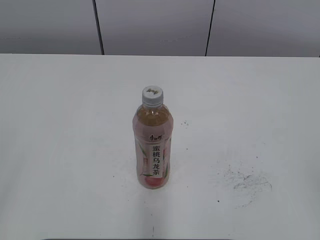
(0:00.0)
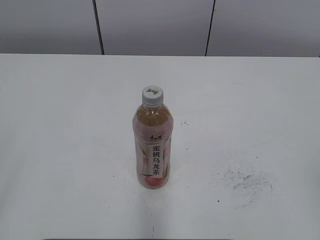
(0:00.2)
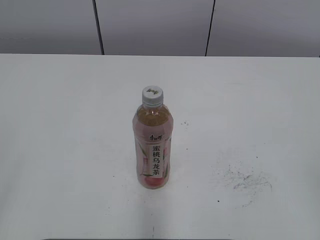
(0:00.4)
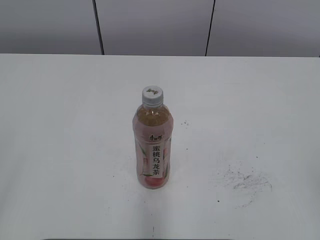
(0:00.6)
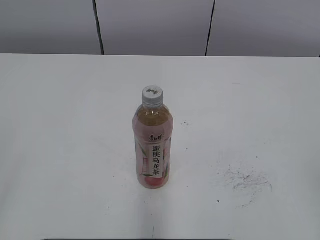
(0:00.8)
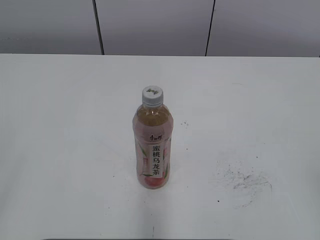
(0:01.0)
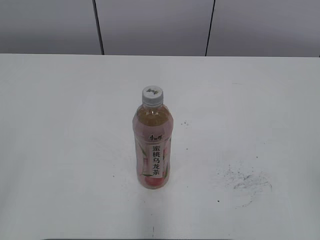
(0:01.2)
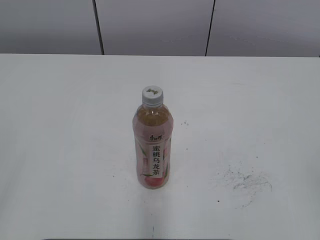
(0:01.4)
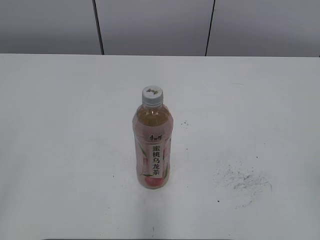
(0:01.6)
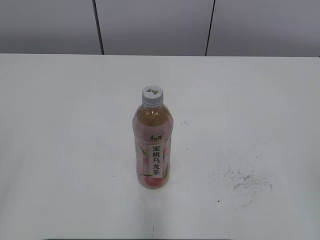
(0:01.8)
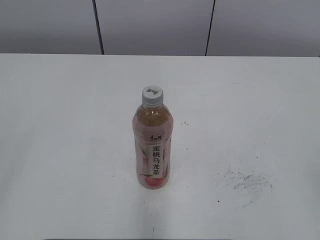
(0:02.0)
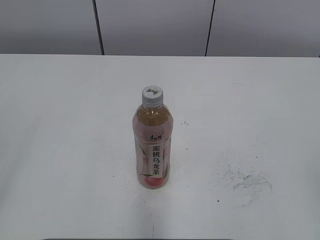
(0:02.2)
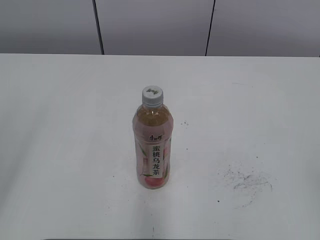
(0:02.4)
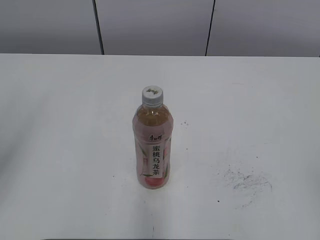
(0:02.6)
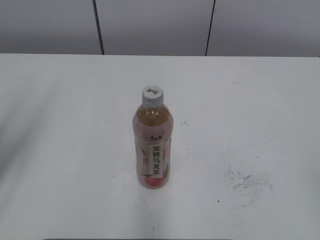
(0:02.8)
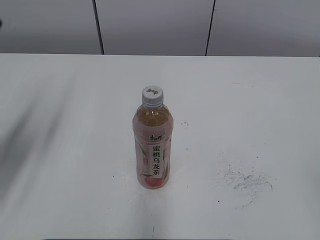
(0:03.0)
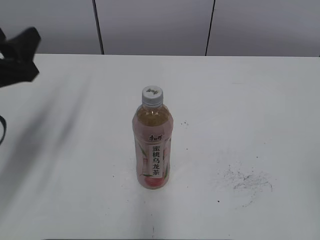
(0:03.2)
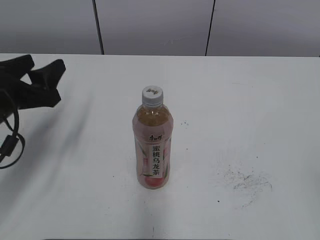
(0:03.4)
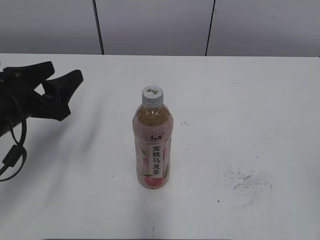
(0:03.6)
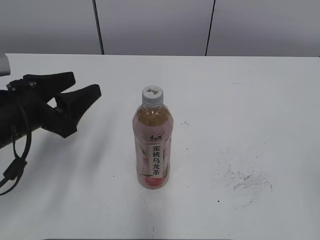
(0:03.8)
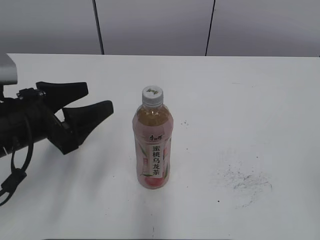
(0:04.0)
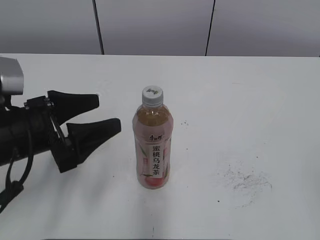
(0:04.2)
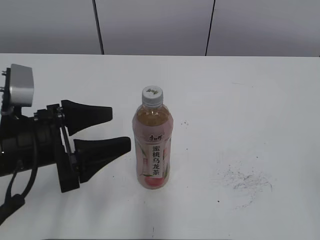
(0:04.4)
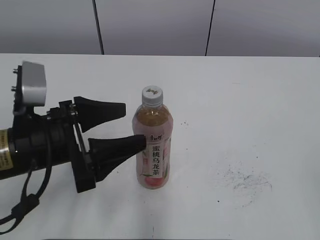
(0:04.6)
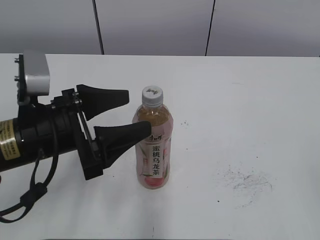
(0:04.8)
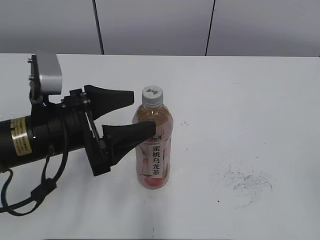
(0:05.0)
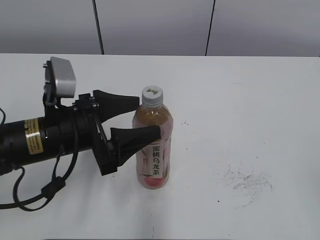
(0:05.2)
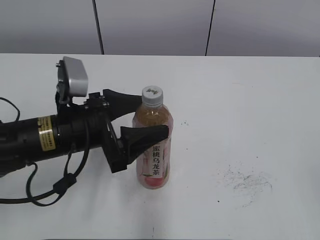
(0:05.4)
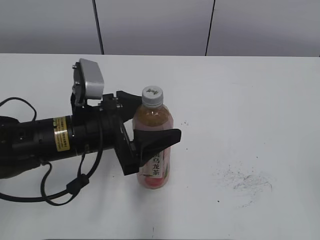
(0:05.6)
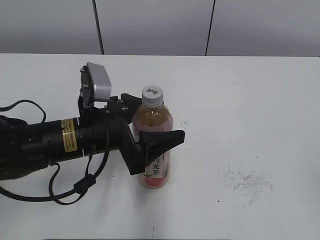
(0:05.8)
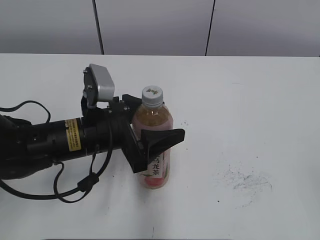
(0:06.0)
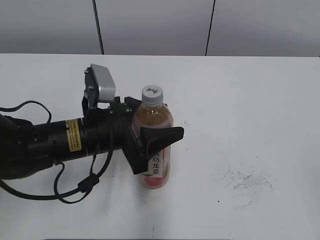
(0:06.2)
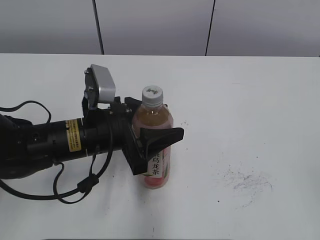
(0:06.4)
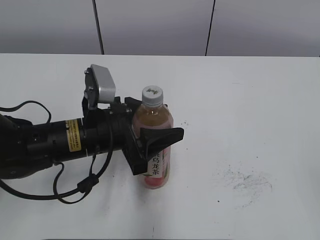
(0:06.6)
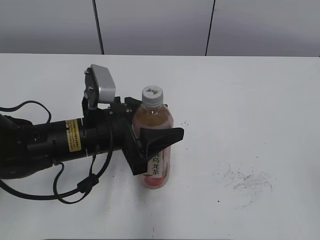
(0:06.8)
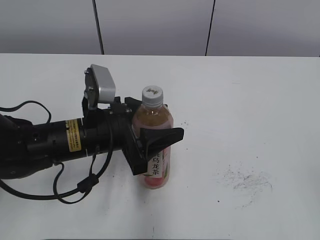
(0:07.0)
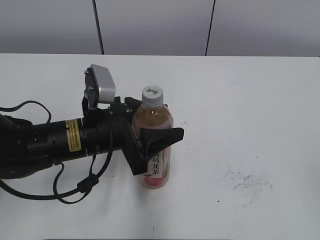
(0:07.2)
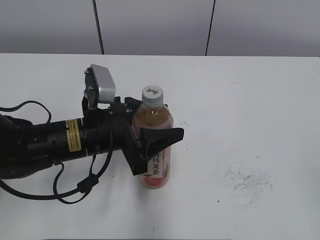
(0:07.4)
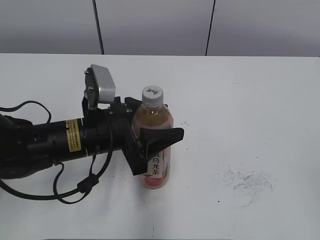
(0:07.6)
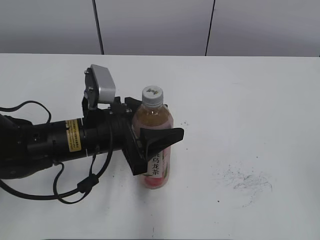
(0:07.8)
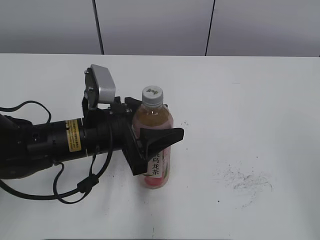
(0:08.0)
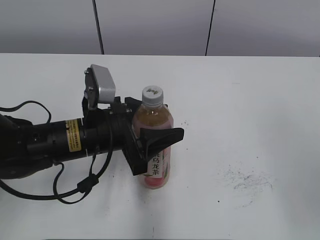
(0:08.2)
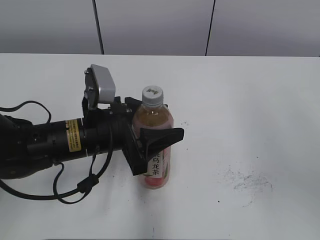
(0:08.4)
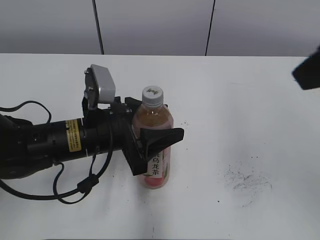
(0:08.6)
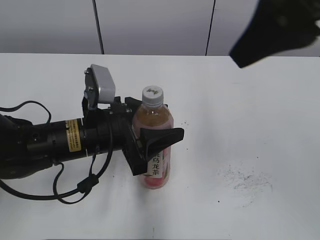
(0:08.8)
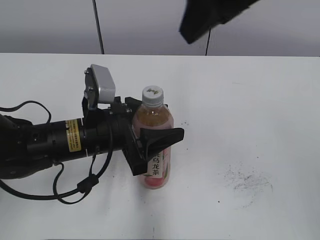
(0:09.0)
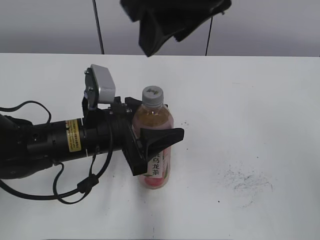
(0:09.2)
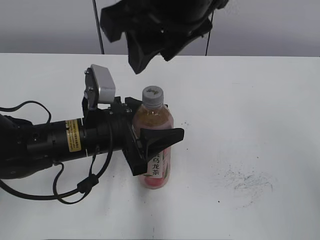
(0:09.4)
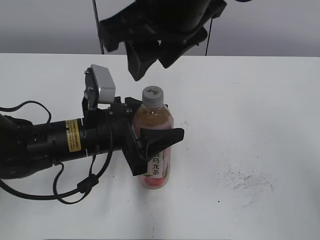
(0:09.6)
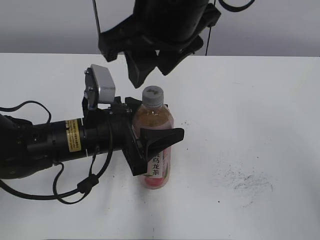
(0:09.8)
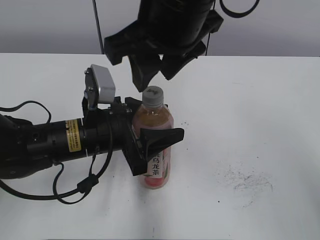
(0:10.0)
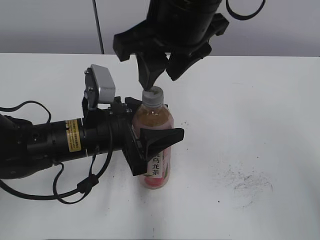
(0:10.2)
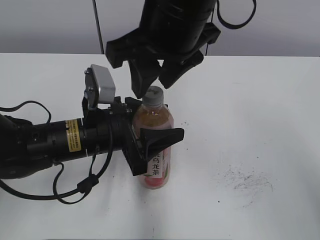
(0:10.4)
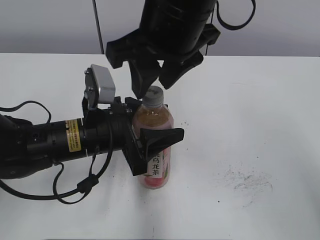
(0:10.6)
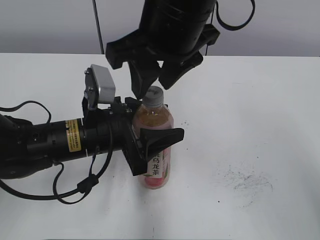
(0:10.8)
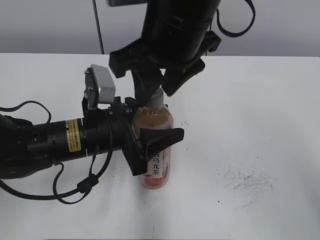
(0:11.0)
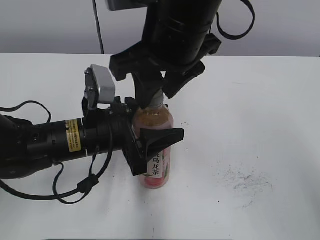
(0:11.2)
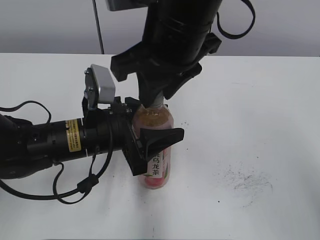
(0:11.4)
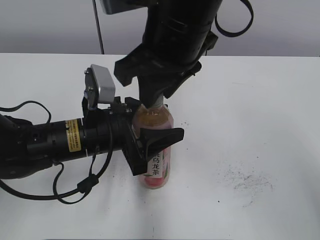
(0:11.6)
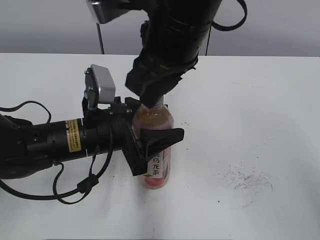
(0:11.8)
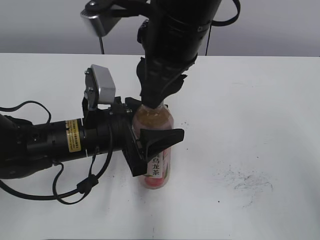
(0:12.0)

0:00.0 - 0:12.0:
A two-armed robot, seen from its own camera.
Step, 0:00.0 - 0:06.6: Grab the Peach Oolong Tea with the left hand.
0:01.6 - 0:03.0: The left gripper moves forward, some 20 cm.
0:03.0 - 0:04.4: The left gripper heads downward and to the right, covering approximately 15 cm, and opens its fingers.
0:04.4 - 0:06.0: The left gripper travels to the right by some 10 cm.
0:06.0 - 0:07.6: The left gripper closes.
0:07.6 - 0:09.0: The right gripper travels forward, to the left and upward by some 35 cm.
0:09.0 - 0:10.4: The right gripper is displaced downward and to the left by approximately 10 cm, and closes its fingers.
0:10.4 - 0:12.0: The right gripper closes its fingers.

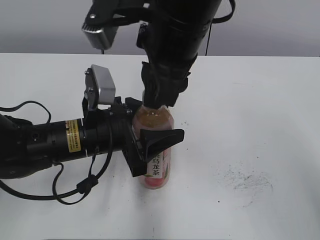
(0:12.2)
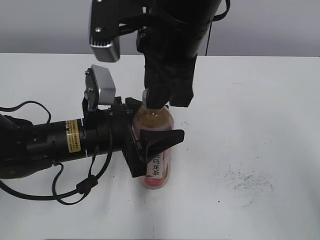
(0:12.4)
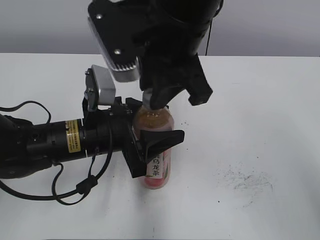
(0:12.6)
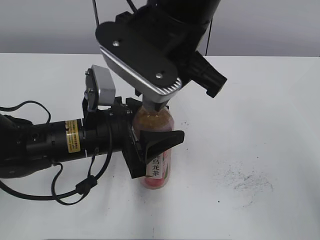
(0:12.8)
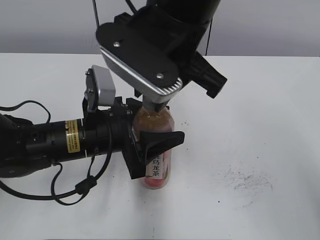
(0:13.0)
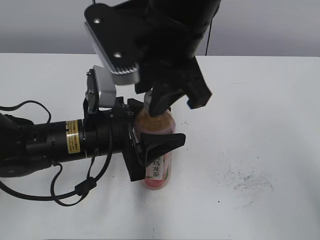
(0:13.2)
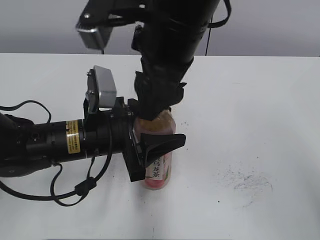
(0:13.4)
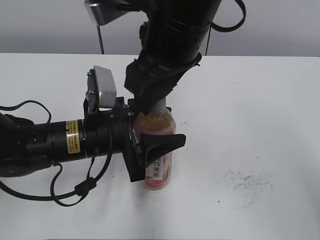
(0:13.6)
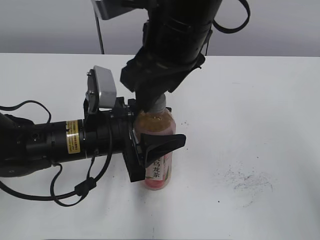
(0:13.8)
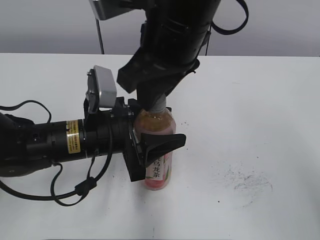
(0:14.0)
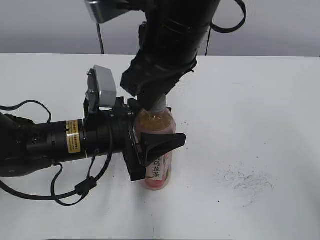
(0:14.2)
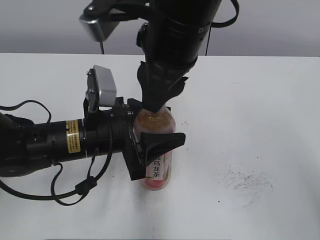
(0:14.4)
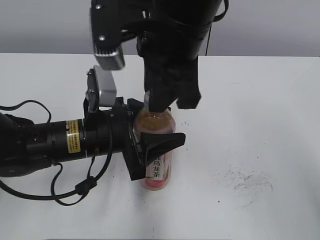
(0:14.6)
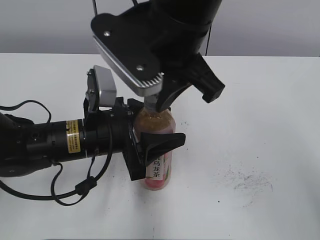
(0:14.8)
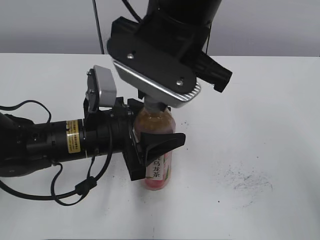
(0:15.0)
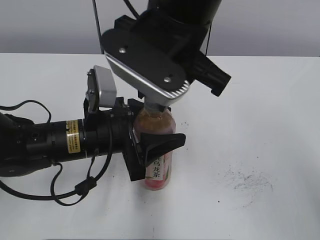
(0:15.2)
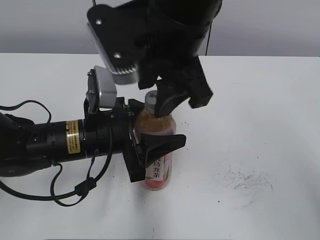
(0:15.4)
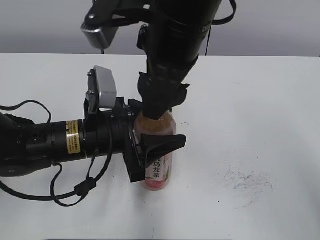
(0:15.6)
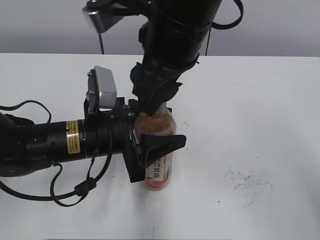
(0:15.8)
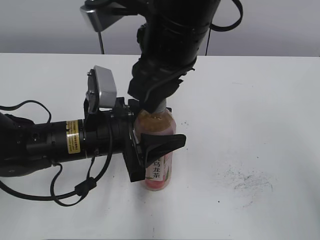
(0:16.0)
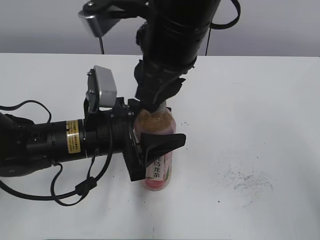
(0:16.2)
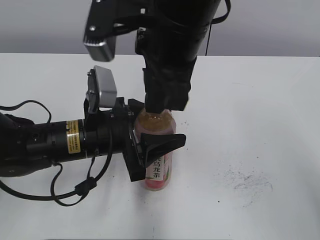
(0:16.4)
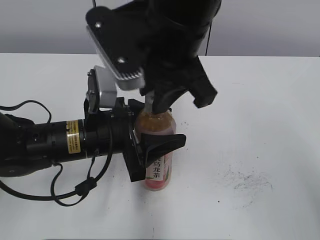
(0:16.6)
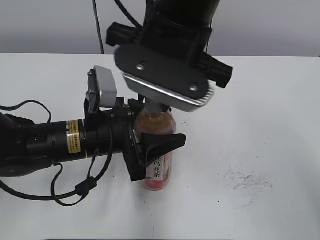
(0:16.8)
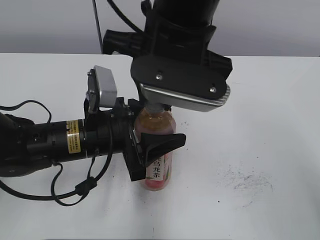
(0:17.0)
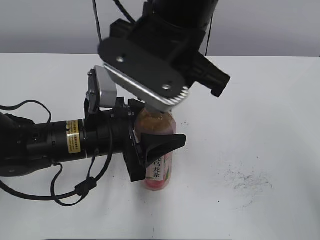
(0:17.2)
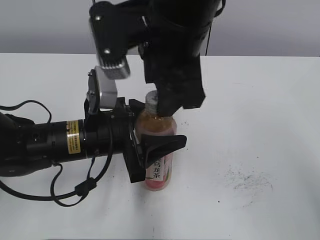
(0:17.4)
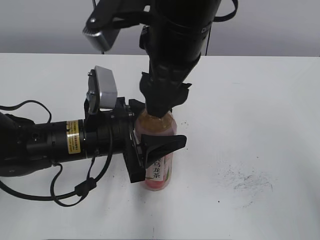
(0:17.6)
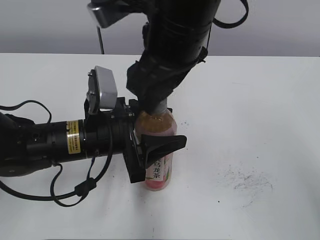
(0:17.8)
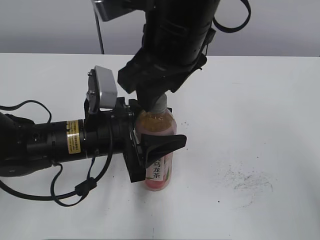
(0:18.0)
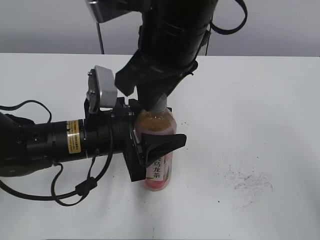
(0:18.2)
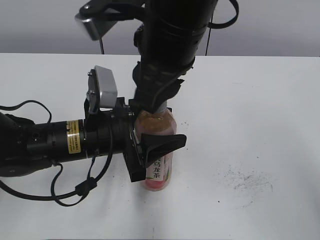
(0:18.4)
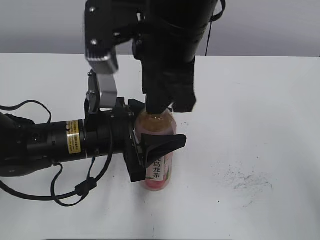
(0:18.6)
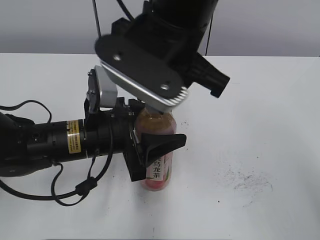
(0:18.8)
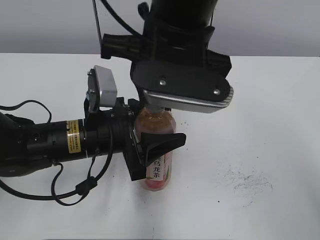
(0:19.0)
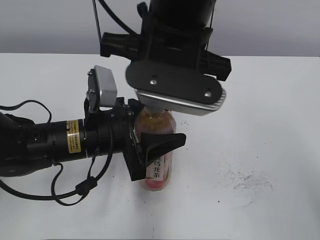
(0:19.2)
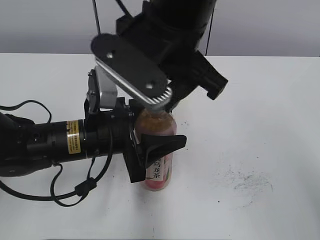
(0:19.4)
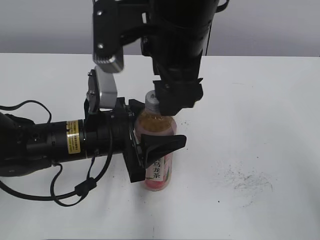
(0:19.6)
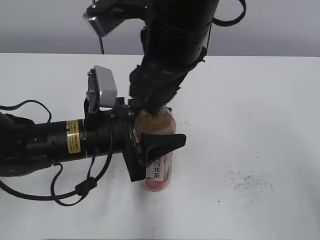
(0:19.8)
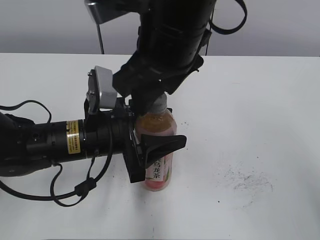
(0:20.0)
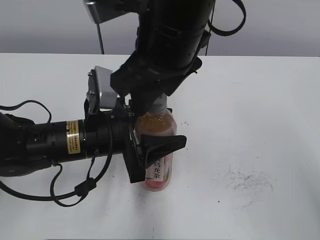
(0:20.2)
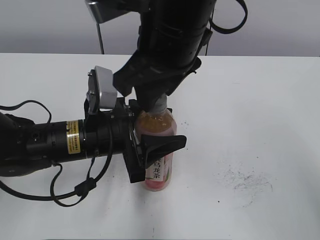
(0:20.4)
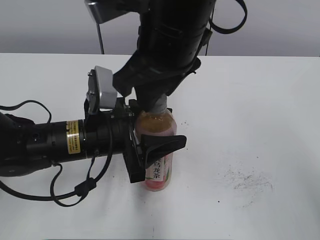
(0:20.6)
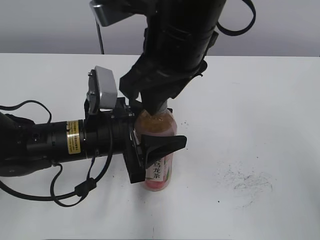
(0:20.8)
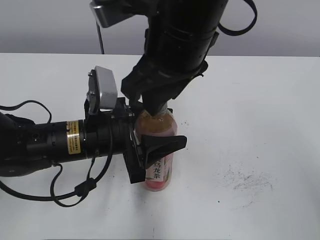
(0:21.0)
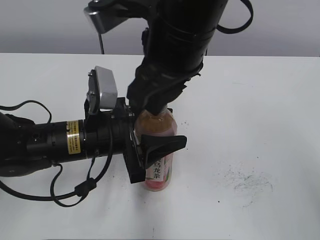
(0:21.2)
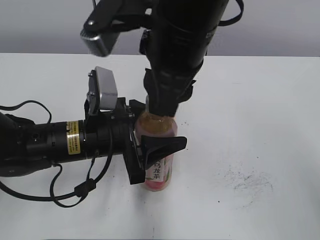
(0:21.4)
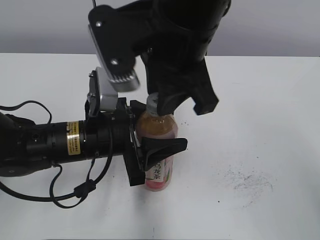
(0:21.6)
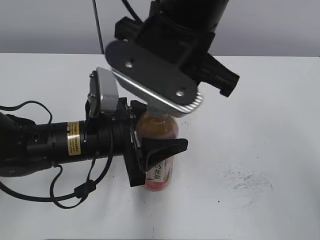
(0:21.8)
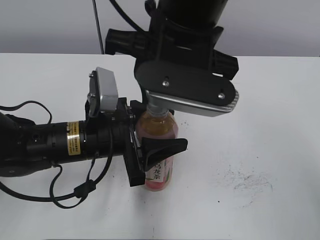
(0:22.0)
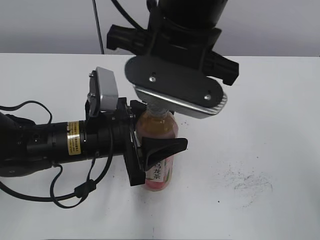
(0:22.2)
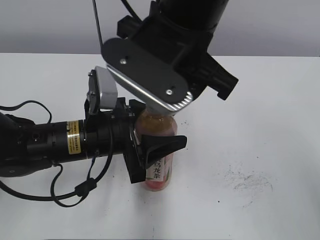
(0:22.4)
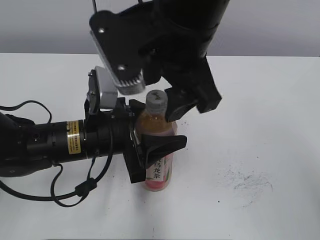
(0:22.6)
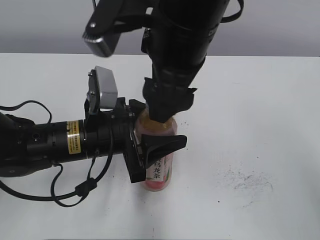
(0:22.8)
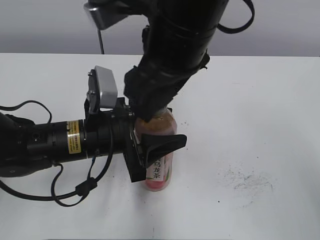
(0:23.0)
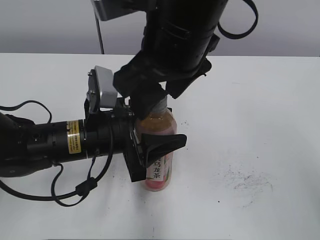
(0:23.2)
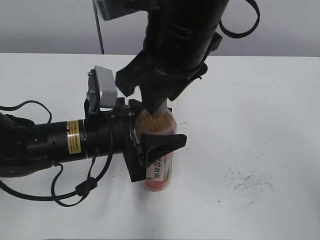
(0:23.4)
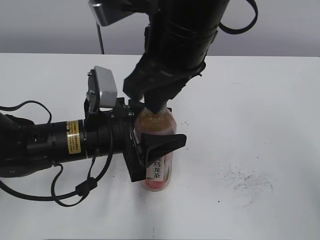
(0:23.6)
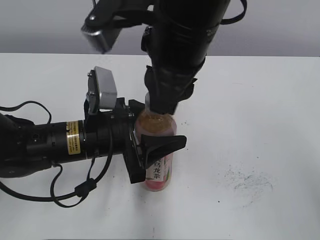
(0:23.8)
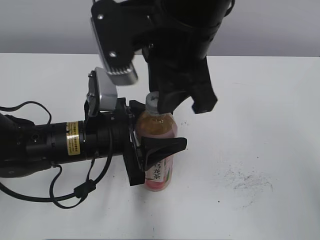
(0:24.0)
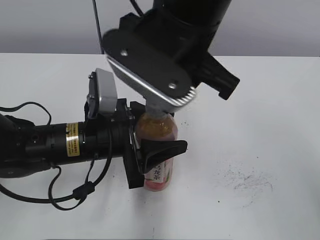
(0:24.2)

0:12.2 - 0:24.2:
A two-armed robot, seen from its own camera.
0:12.2 - 0:13.8: The right gripper opens its fingers.
0:13.8 - 0:15.2: The right gripper closes.
0:15.2 - 0:16.6: The right gripper opens, then closes once more.
0:16.6 - 0:18.2: The right gripper opens, then closes once more.
0:18.2 - 0:19.8: The right gripper opens up.
0:19.8 - 0:21.2: The right gripper closes up.
0:21.2 - 0:22.6: The right gripper opens up.
0:22.6 - 0:24.2: The right gripper closes.
